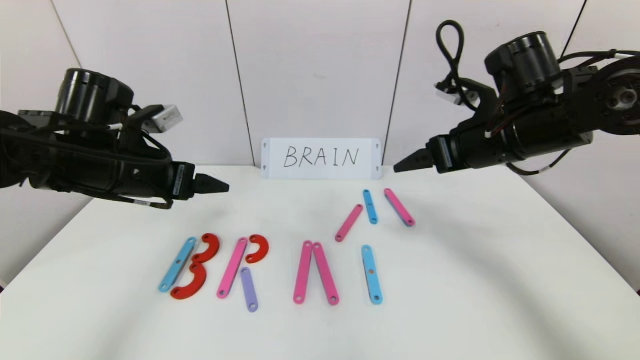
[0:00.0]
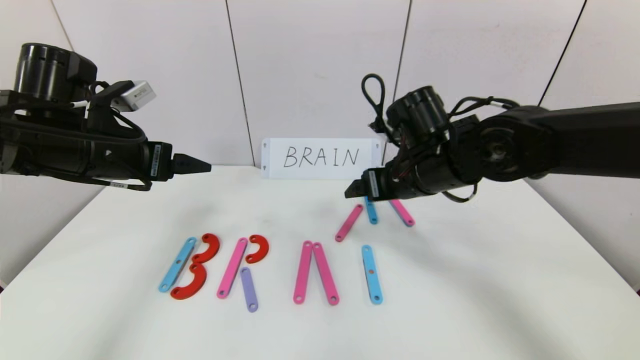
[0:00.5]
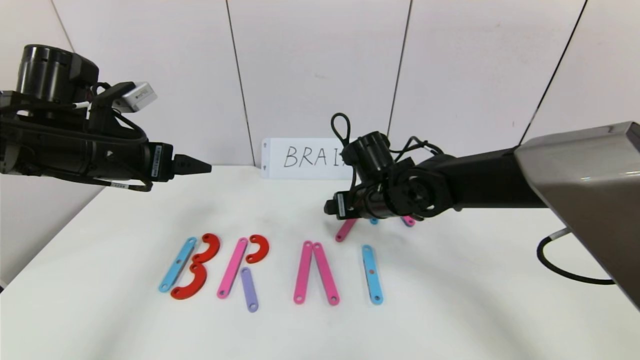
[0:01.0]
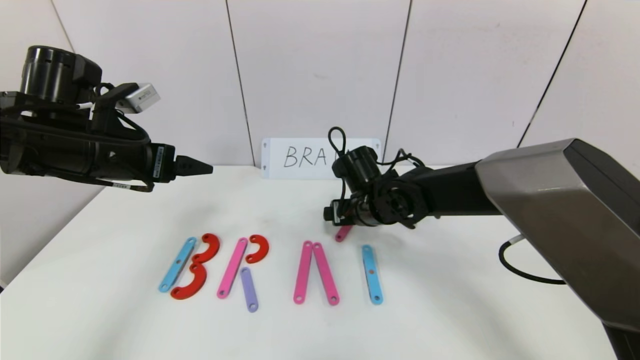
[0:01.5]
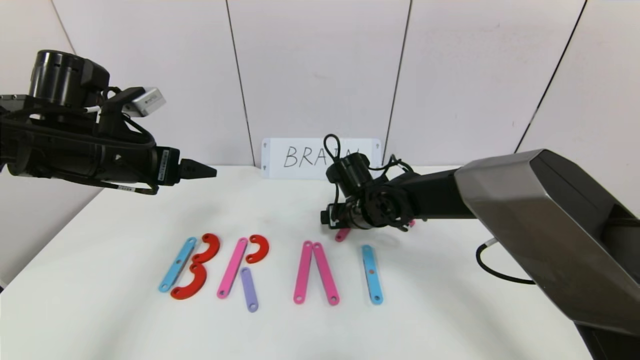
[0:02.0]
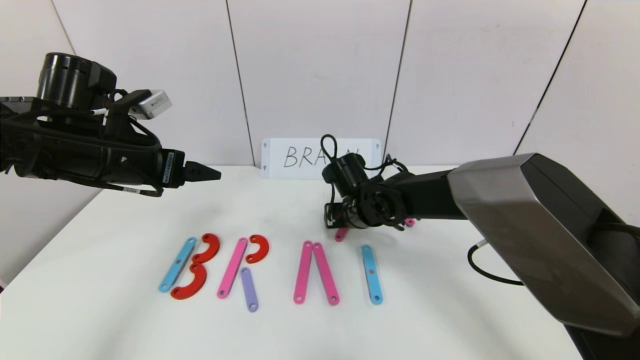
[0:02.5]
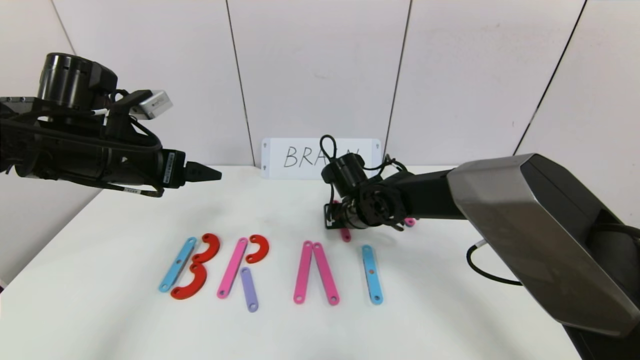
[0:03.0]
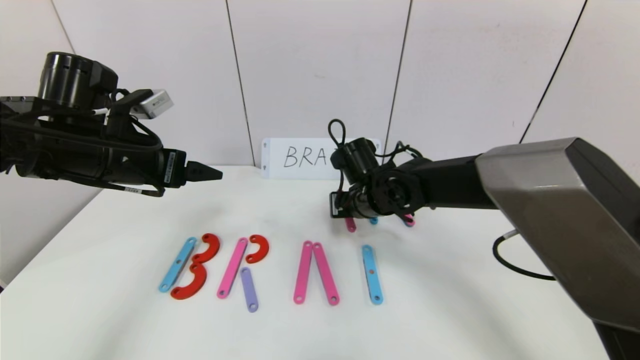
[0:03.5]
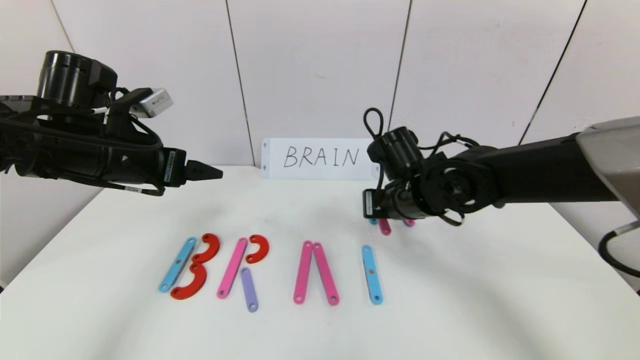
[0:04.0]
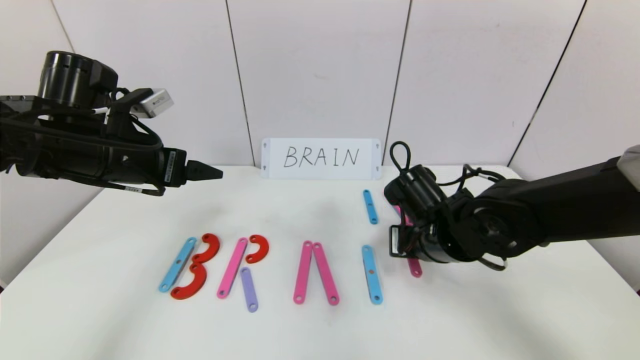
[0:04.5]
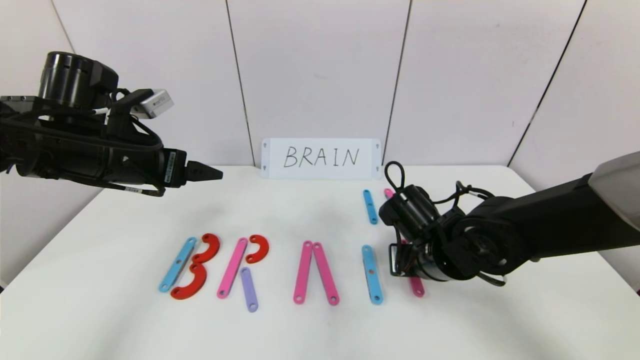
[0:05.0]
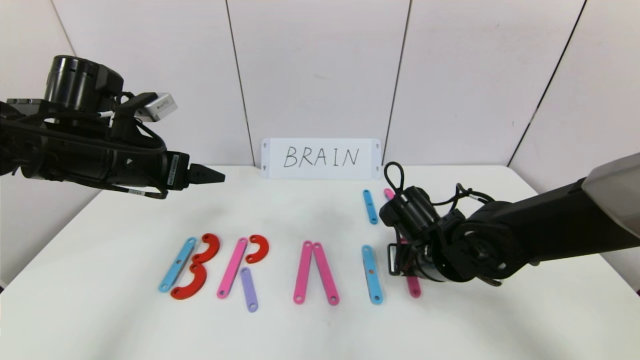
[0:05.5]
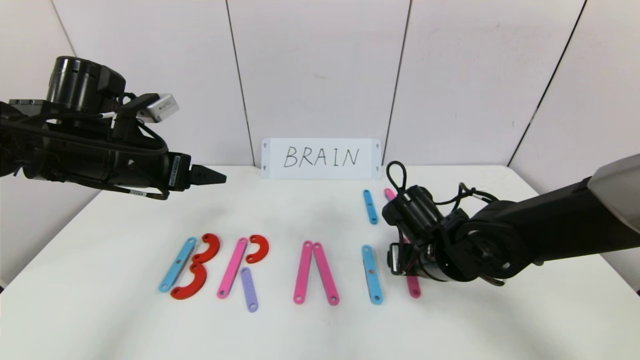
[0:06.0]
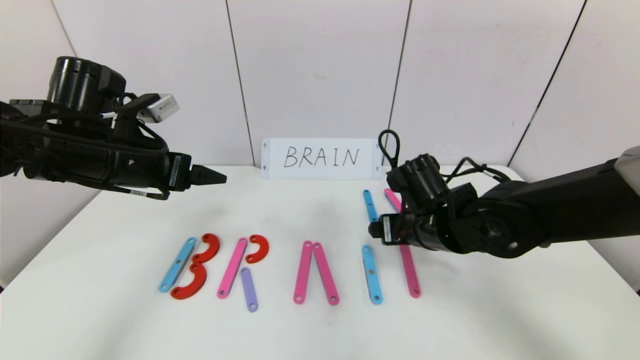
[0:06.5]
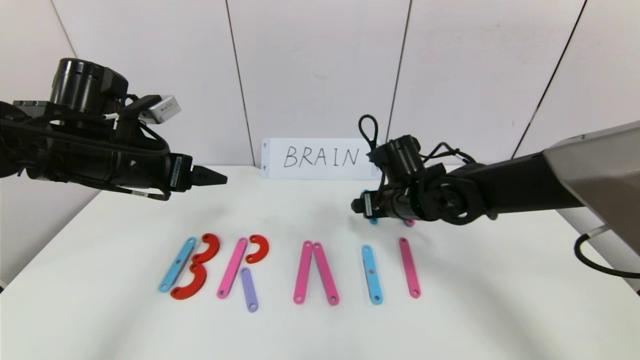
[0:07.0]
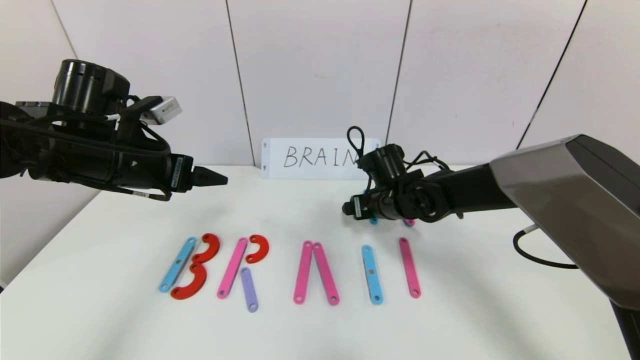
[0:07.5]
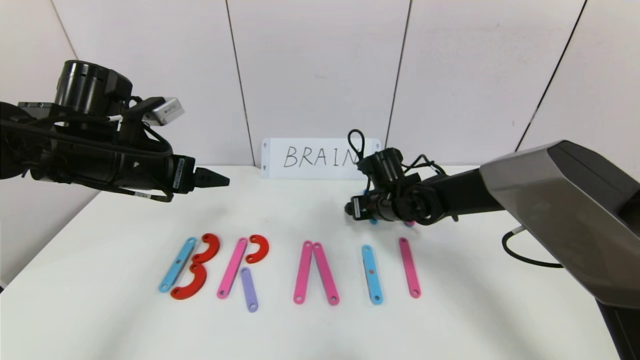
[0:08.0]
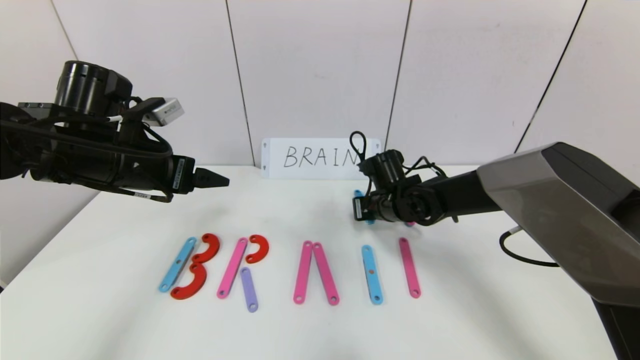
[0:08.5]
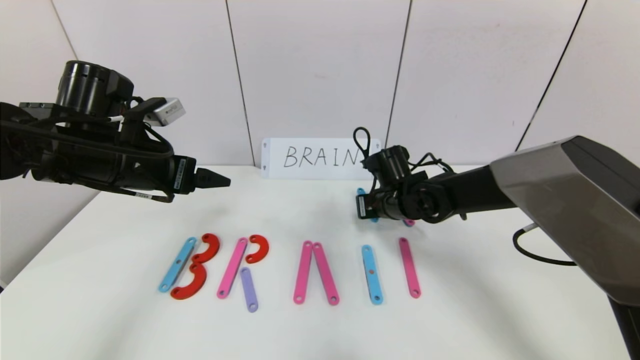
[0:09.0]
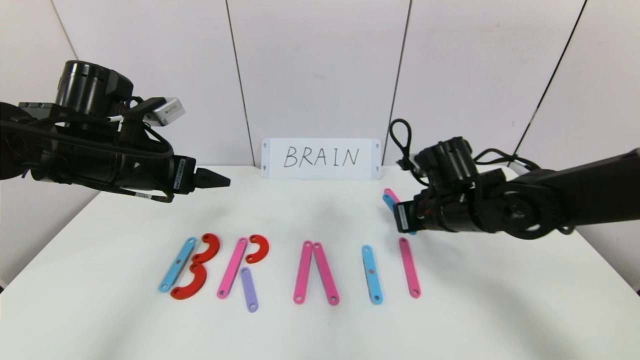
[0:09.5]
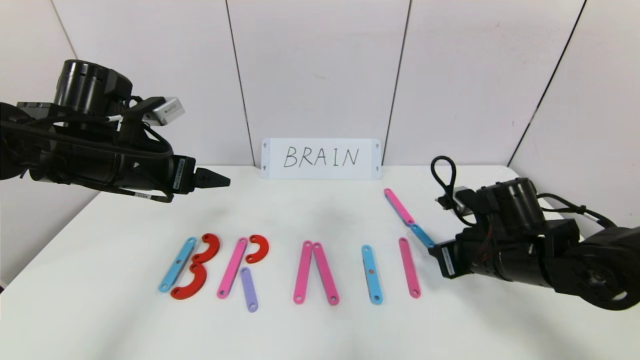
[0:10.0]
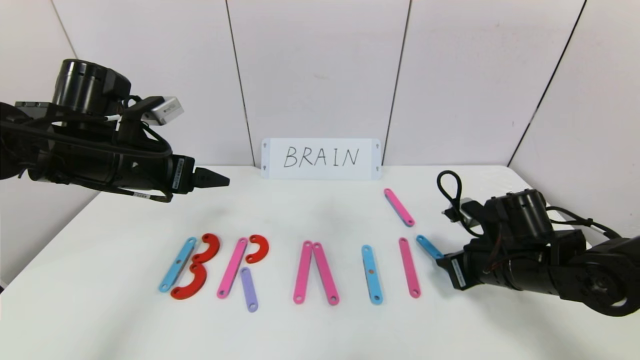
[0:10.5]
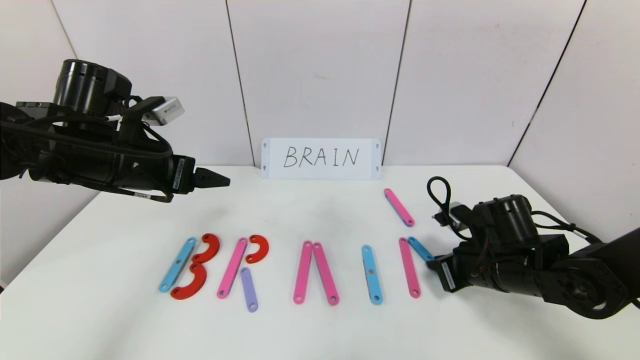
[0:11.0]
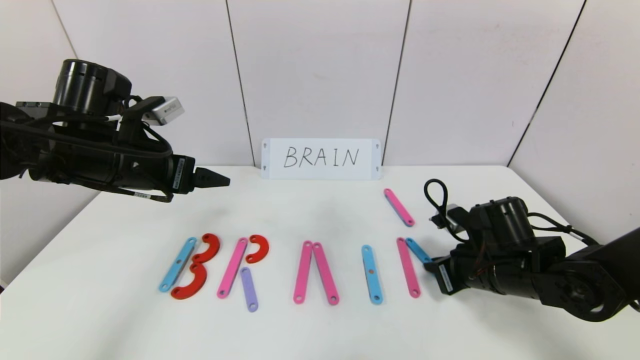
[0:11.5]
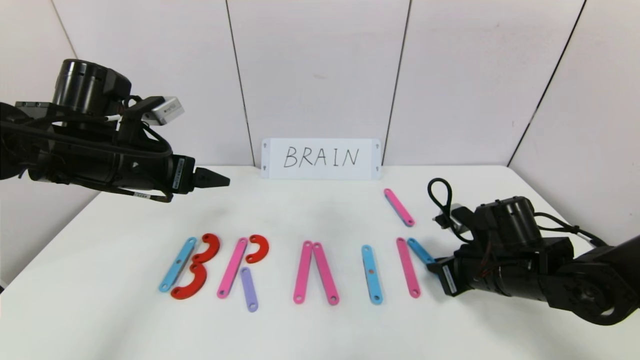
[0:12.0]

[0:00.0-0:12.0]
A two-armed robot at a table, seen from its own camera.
Task of the whole recording: rearrange the word baai as brain.
0:00.0 to 0:02.0: The right gripper moves downward and to the left, about 20 cm.
0:02.0 to 0:04.0: The right gripper heads to the right and upward, covering roughly 10 cm, and closes up.
0:04.0 to 0:06.0: The right gripper shifts about 10 cm downward and backward, and opens its fingers.
0:06.0 to 0:08.0: The right gripper heads forward, covering some 15 cm.
0:08.0 to 0:10.0: The right gripper heads backward and to the right, covering about 20 cm, and closes.
0:10.0 to 0:12.0: The grippers make only small movements.

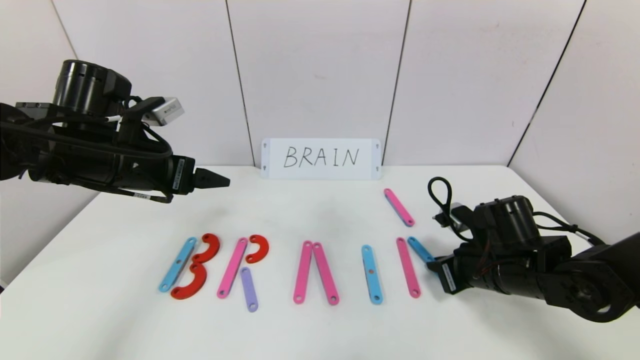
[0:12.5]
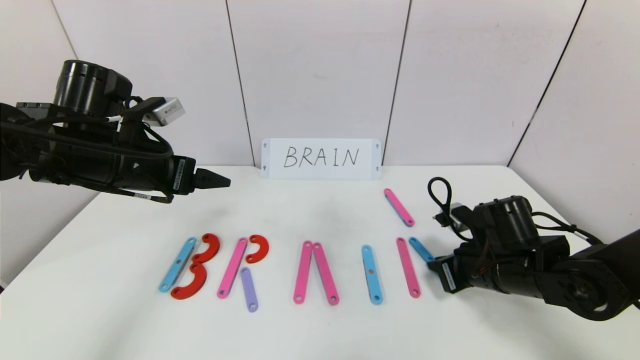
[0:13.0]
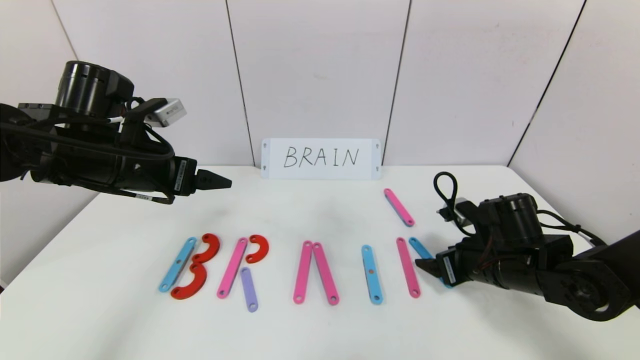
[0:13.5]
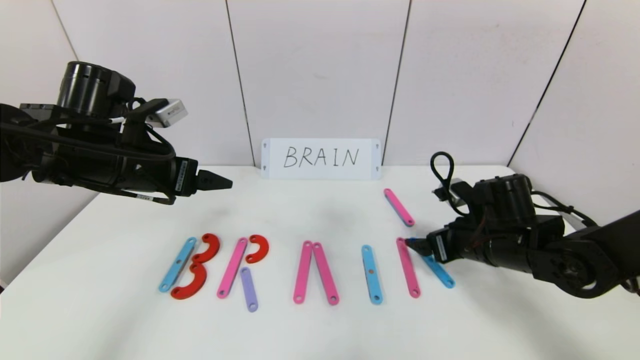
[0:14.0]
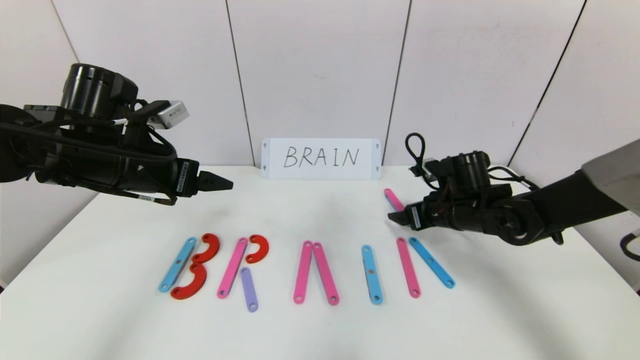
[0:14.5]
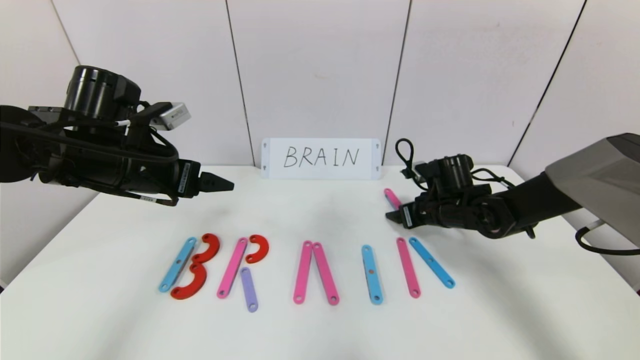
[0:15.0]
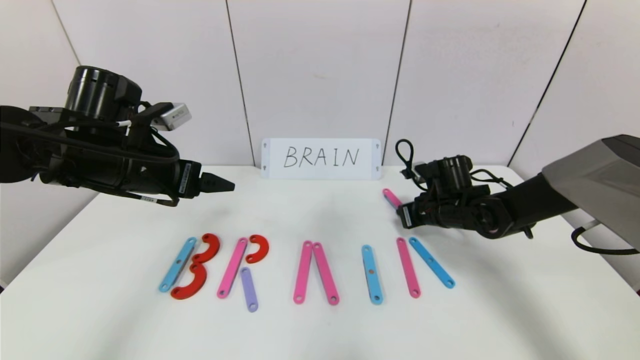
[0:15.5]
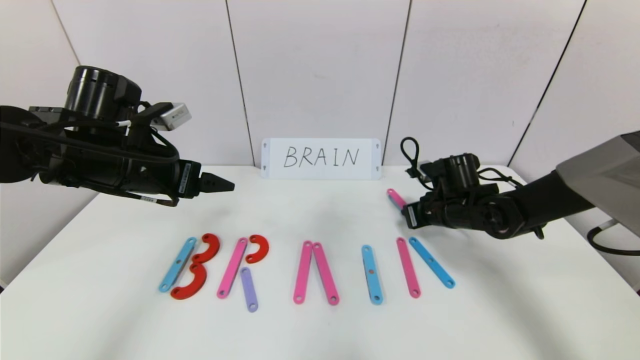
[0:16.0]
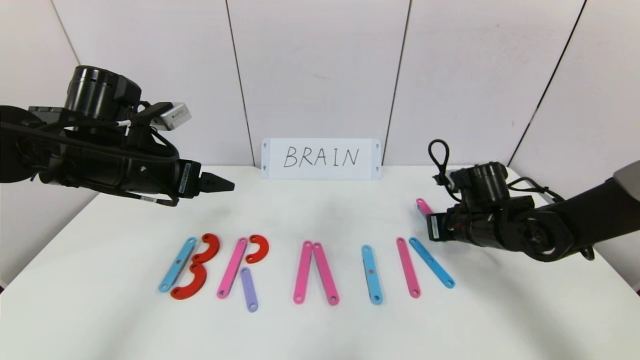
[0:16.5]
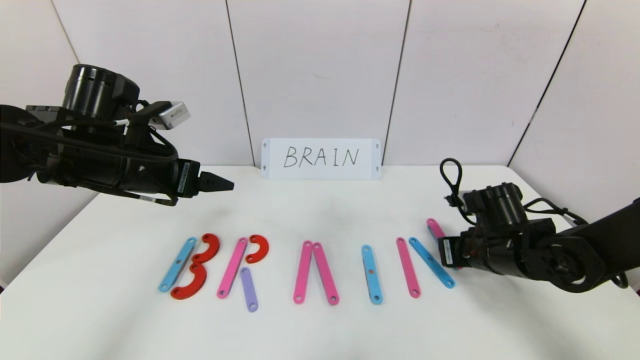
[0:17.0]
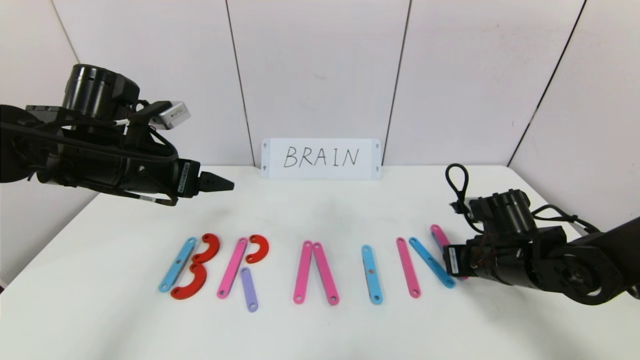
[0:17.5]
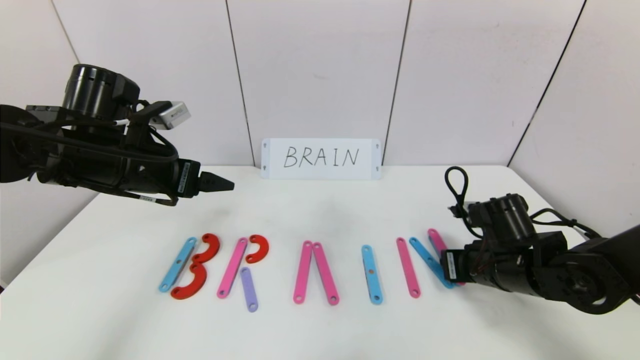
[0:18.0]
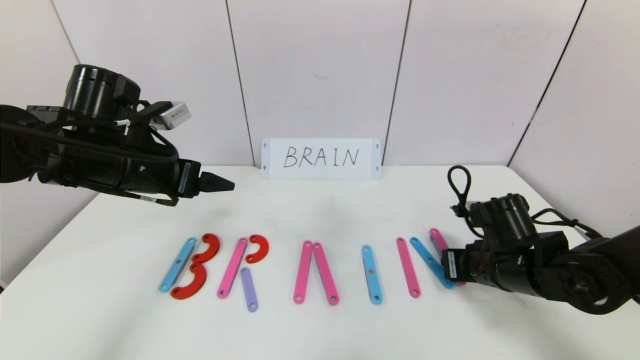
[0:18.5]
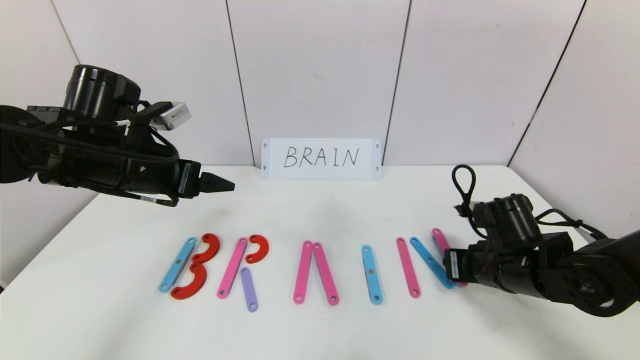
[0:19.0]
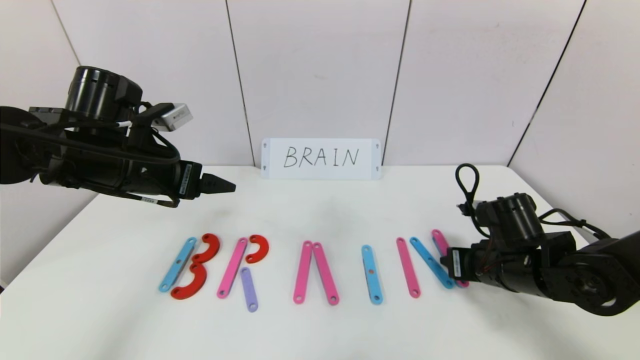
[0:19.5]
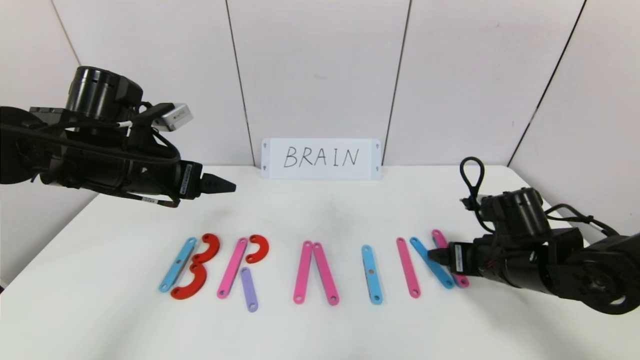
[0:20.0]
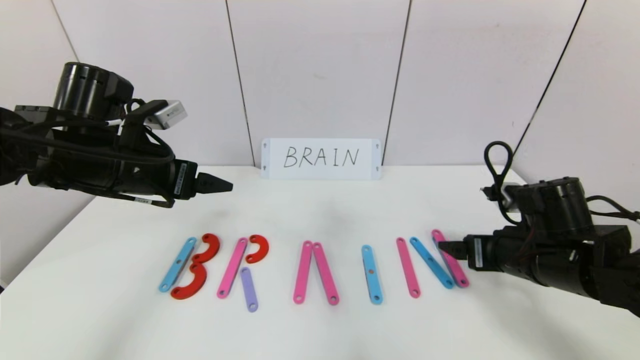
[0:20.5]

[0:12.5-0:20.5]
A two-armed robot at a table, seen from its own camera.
Task of the whole recording: rearrange the word baai as brain.
Step, 0:12.5 to 0:20.0: Place the character N after character I.
0:12.5 to 0:14.5: The right gripper shifts some 10 cm forward, and opens its fingers.
0:14.5 to 0:16.5: The right gripper closes its fingers.
0:16.5 to 0:18.5: The right gripper heads backward, covering some 5 cm.
0:18.5 to 0:20.5: The right gripper changes place by some 5 cm, and opens.
